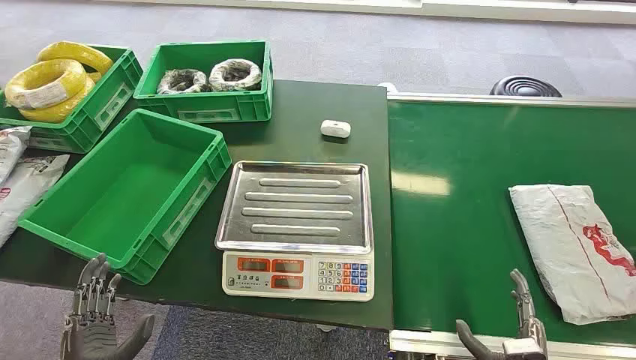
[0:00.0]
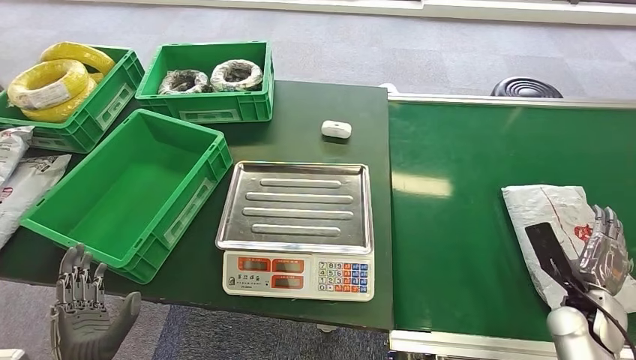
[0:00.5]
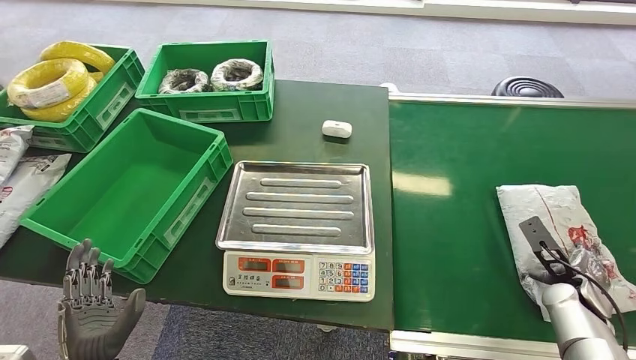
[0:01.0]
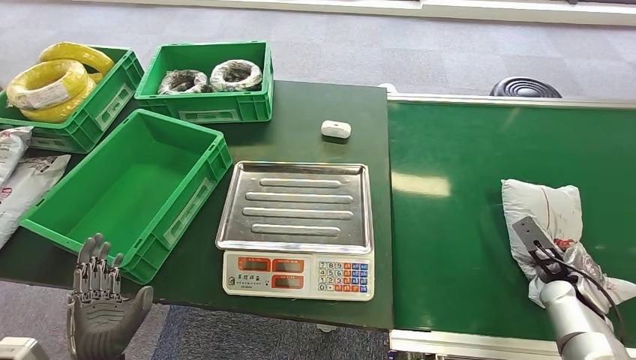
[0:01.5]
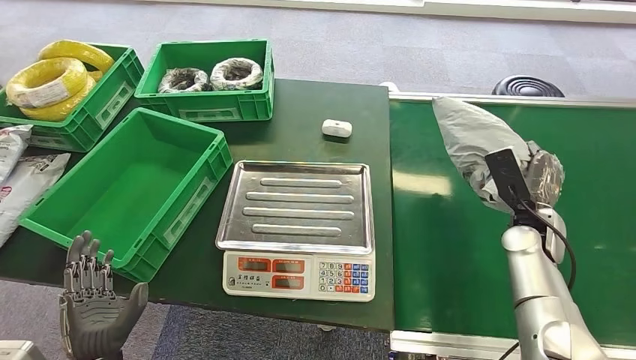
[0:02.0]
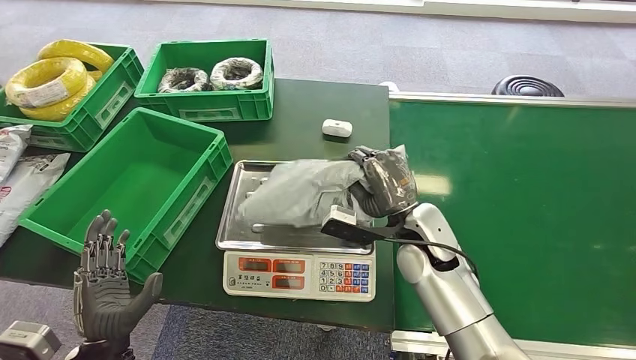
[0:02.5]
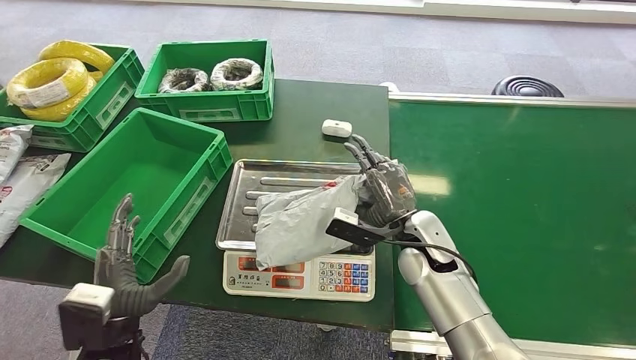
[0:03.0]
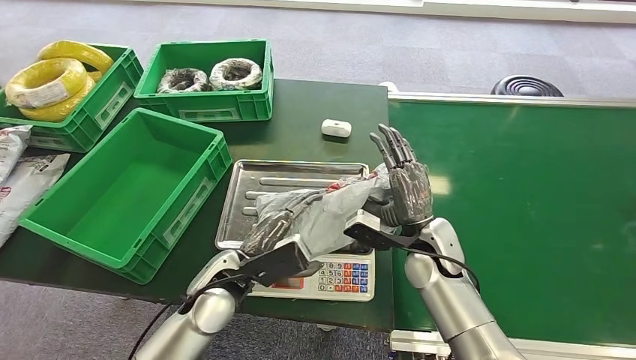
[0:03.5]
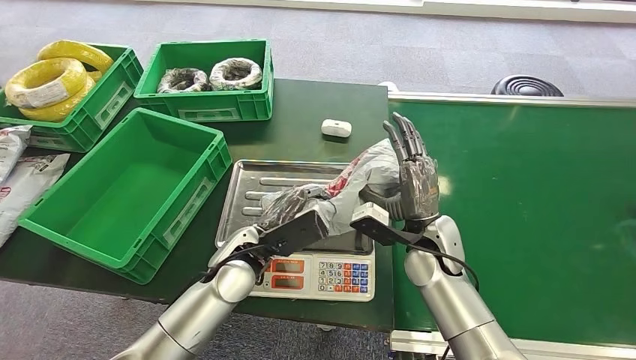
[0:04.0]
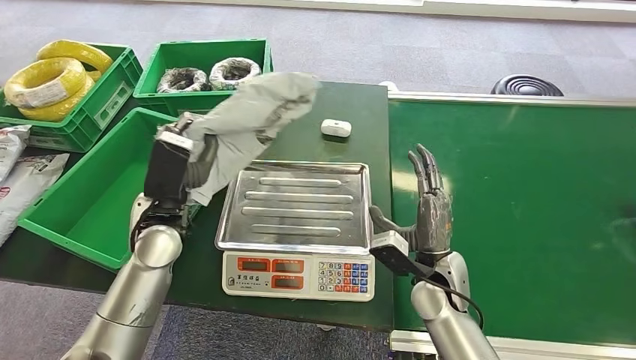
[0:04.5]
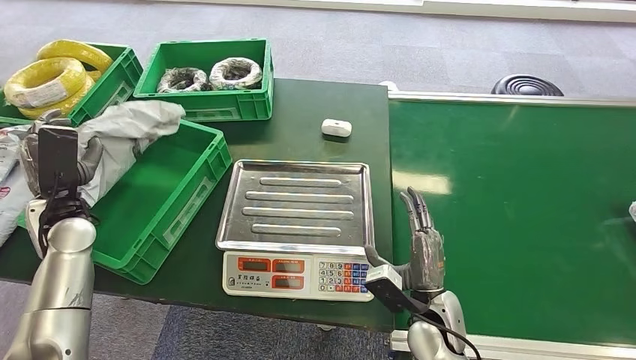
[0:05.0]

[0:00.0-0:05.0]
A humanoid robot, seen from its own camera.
Step, 0:00.0 to 0:02.0: Pick up the package from the conveyor belt.
Step, 0:02.5 to 0:04.0: Place the package onto the inbound machine.

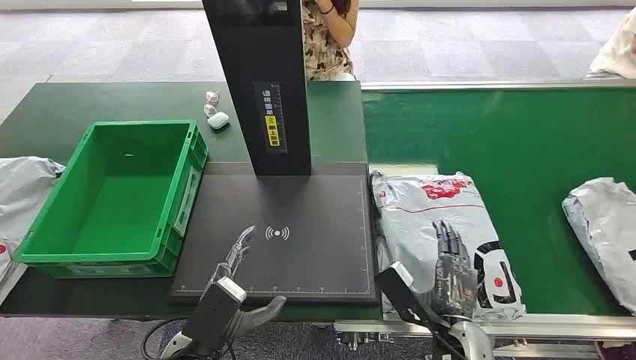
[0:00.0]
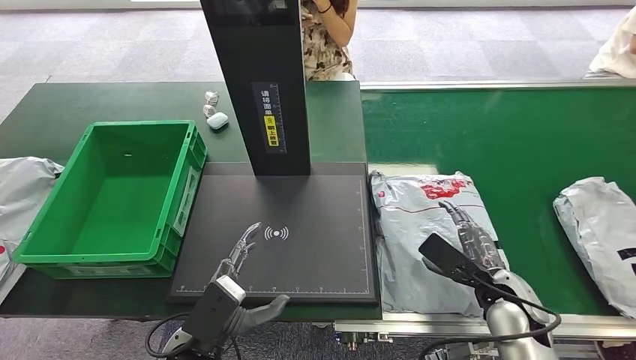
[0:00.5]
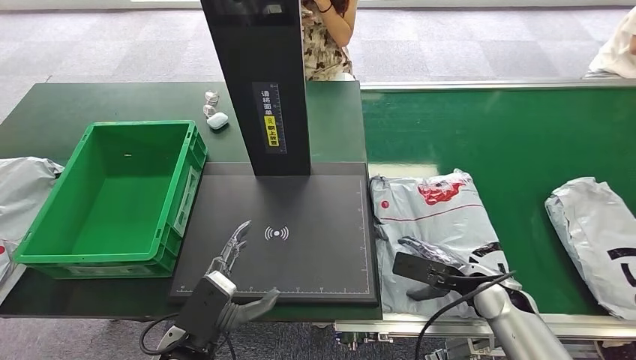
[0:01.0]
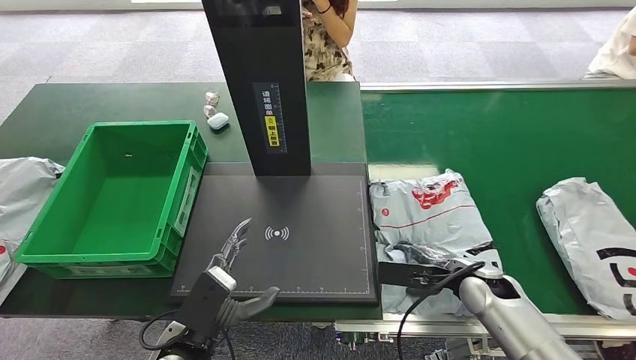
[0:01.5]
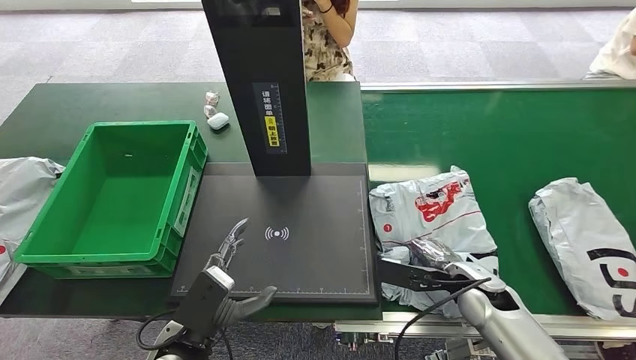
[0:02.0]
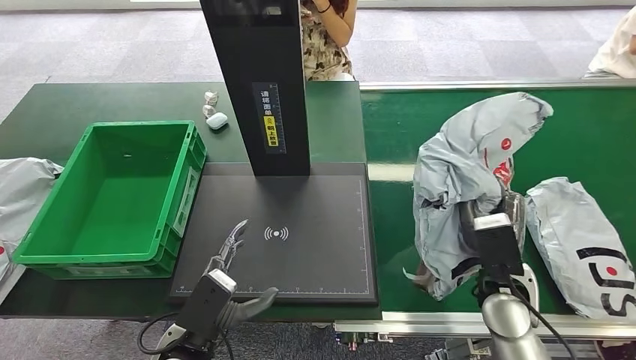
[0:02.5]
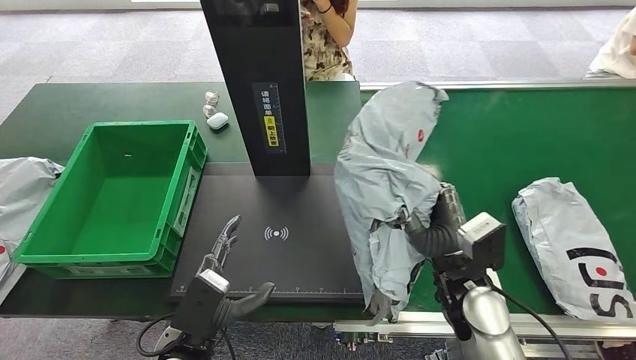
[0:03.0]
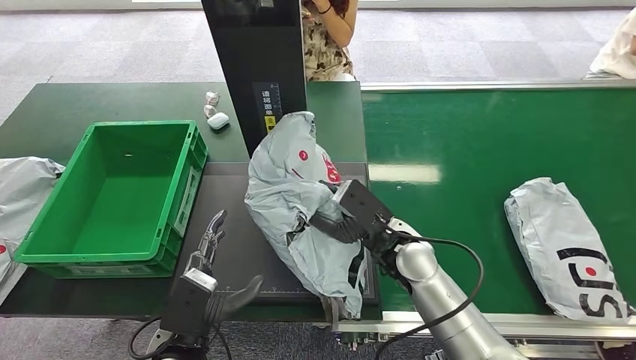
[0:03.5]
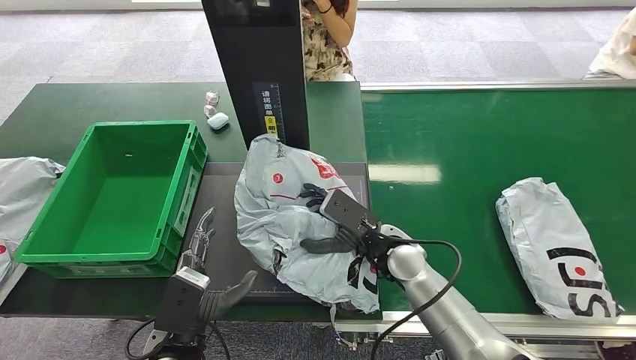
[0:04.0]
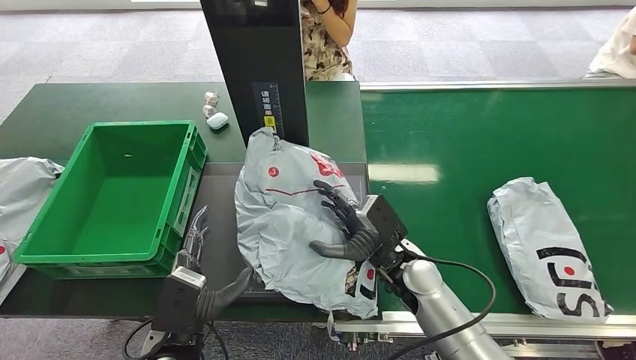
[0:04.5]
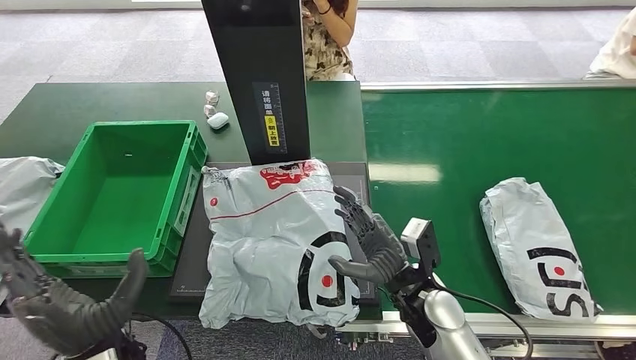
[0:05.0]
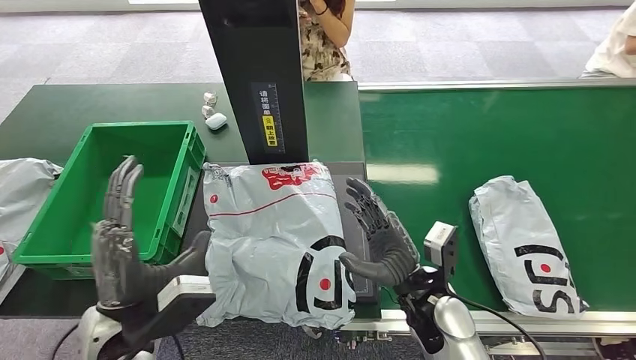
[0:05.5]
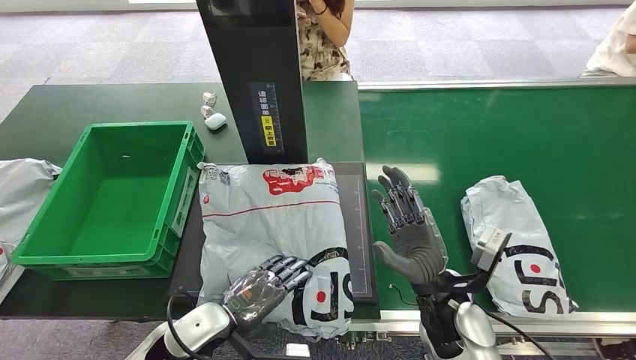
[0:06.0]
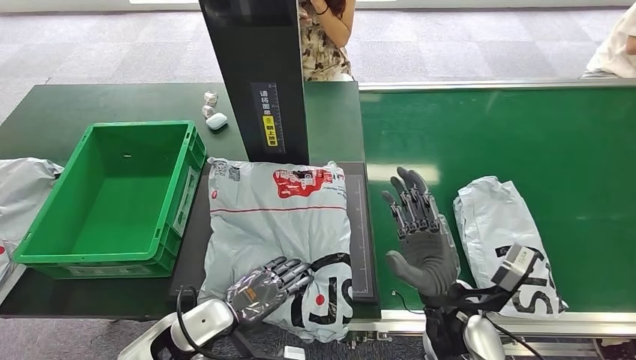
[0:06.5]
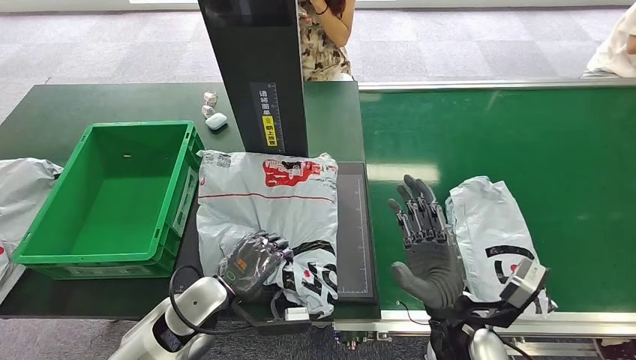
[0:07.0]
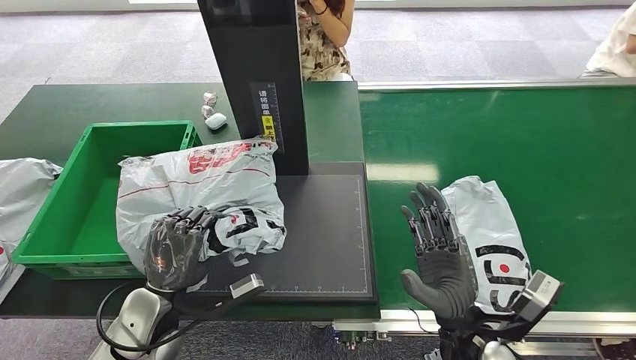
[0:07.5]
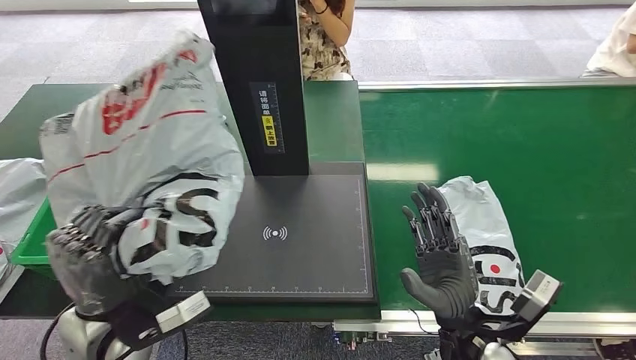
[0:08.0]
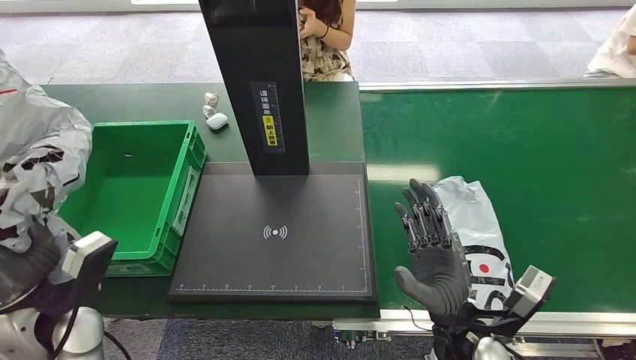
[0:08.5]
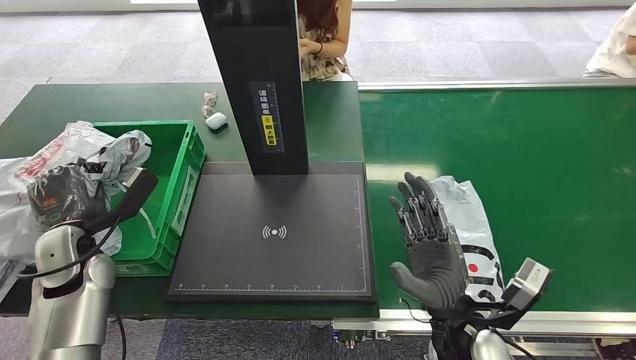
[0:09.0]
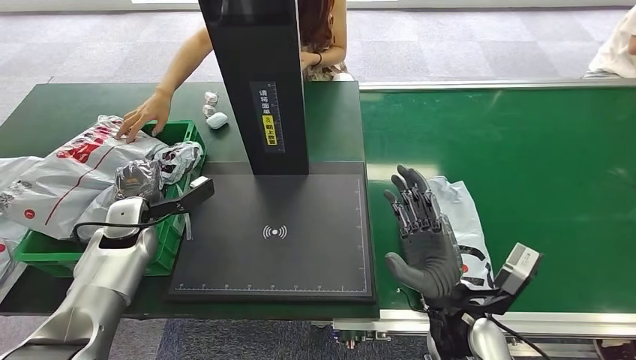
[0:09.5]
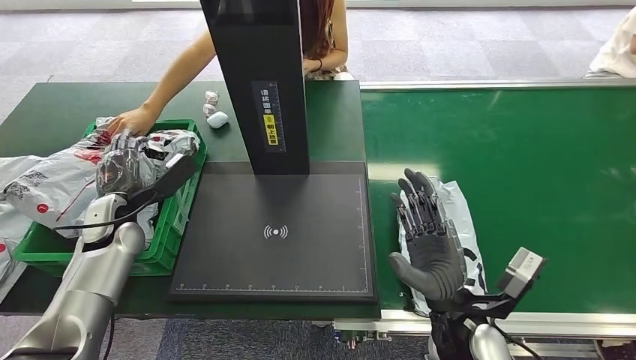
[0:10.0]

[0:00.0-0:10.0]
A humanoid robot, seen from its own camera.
Step, 0:00.0 to 0:02.5: Pick up the package from the conveyor belt.
Step, 0:03.0 to 0:05.5: Place the package onto the inbound machine.
Step, 0:06.0 to 0:07.5: Pick up the package from the inbound machine.
Step, 0:08.5 to 0:10.0: Place the package into the parcel locker.
